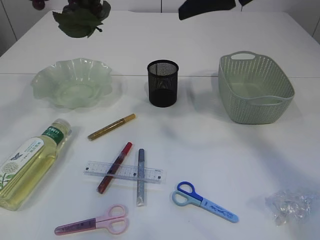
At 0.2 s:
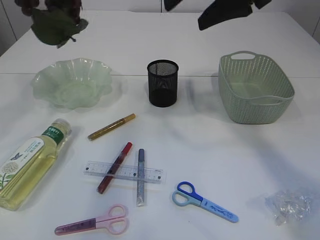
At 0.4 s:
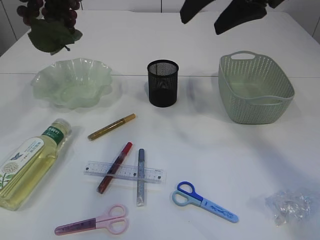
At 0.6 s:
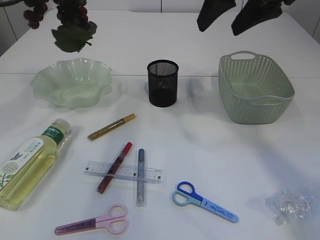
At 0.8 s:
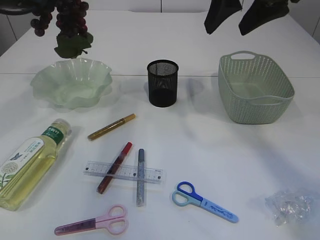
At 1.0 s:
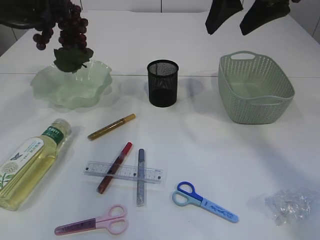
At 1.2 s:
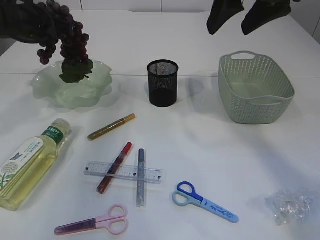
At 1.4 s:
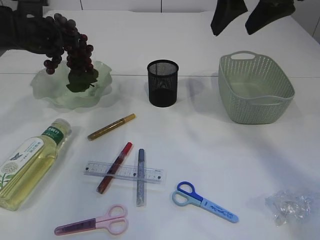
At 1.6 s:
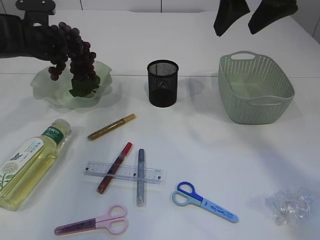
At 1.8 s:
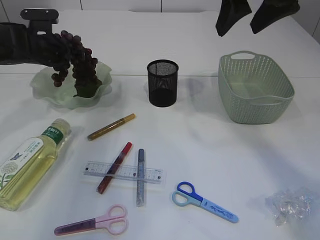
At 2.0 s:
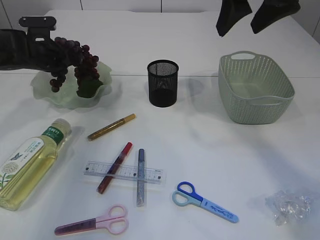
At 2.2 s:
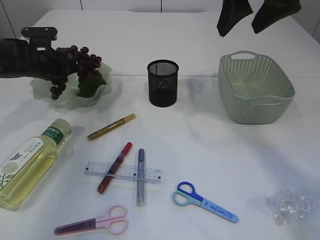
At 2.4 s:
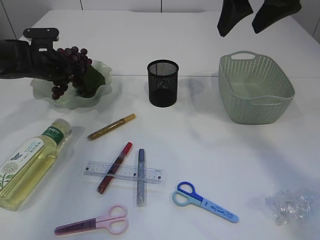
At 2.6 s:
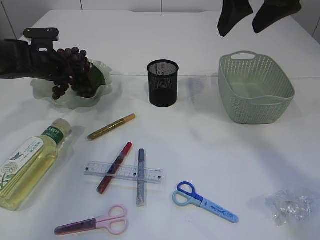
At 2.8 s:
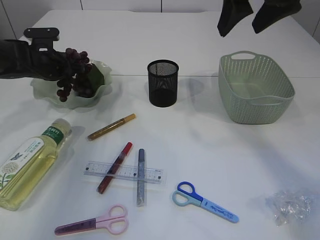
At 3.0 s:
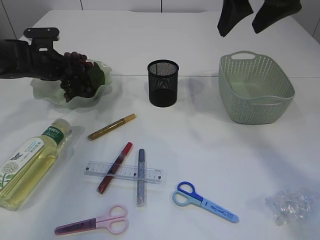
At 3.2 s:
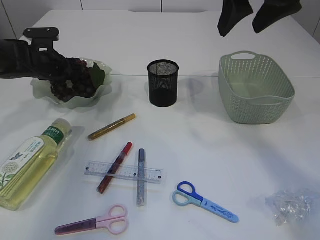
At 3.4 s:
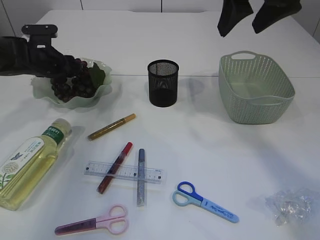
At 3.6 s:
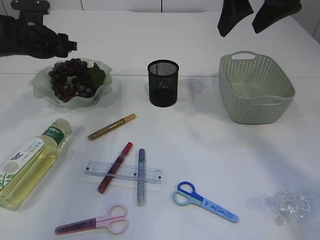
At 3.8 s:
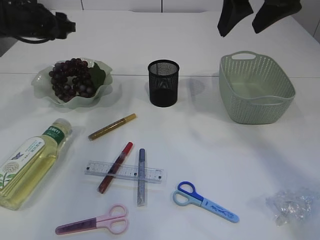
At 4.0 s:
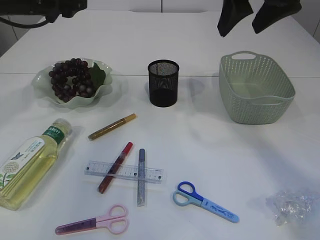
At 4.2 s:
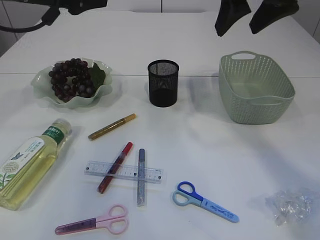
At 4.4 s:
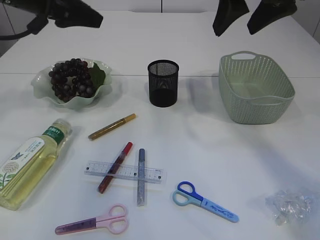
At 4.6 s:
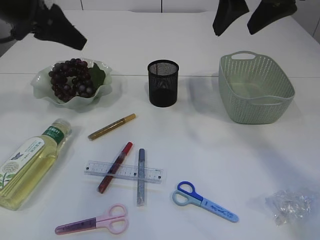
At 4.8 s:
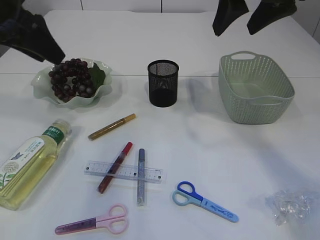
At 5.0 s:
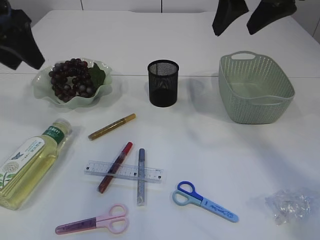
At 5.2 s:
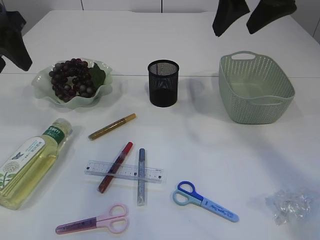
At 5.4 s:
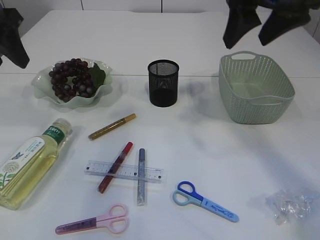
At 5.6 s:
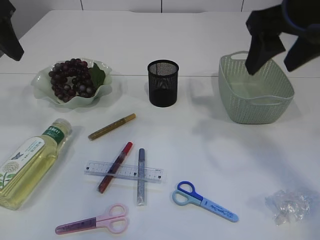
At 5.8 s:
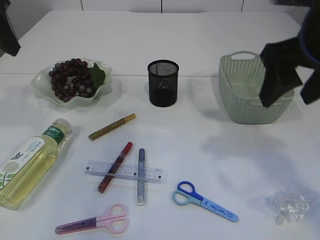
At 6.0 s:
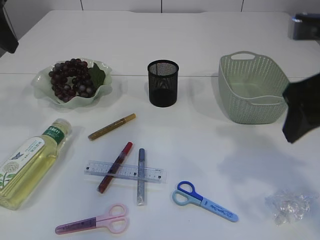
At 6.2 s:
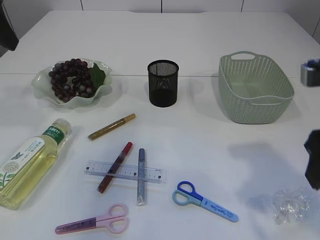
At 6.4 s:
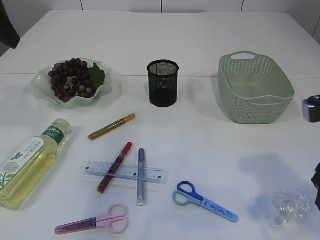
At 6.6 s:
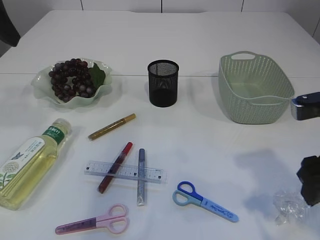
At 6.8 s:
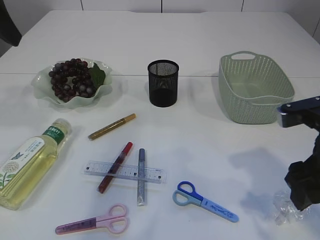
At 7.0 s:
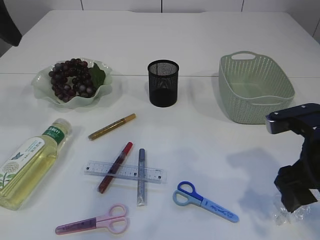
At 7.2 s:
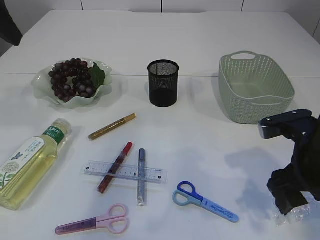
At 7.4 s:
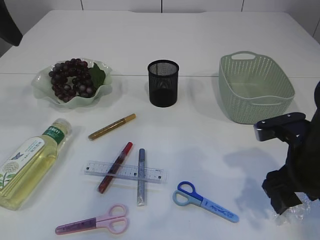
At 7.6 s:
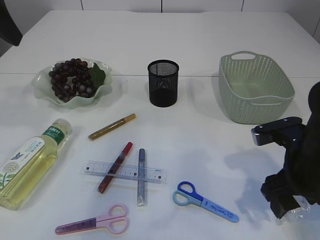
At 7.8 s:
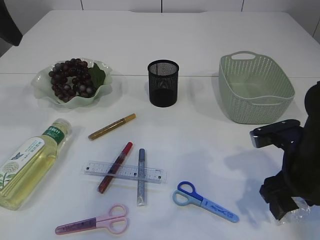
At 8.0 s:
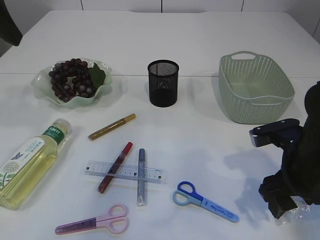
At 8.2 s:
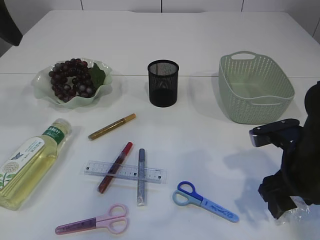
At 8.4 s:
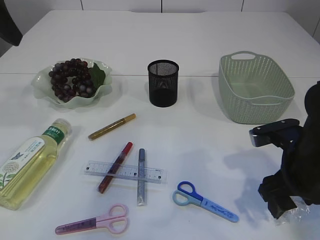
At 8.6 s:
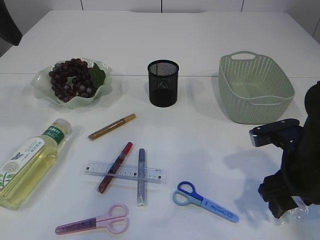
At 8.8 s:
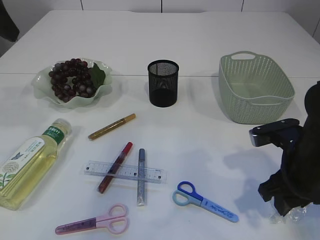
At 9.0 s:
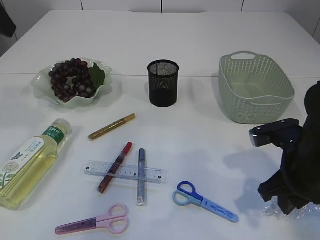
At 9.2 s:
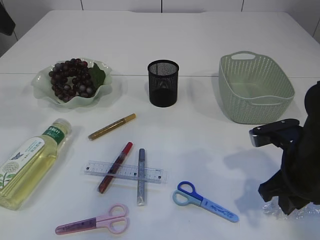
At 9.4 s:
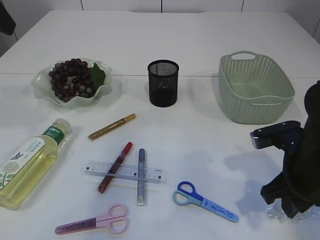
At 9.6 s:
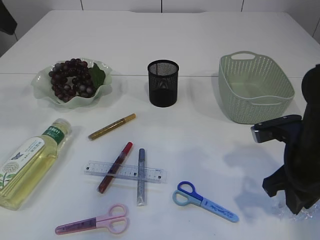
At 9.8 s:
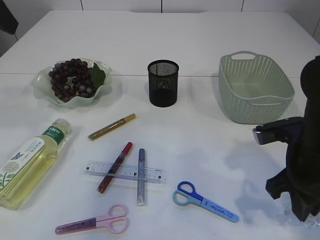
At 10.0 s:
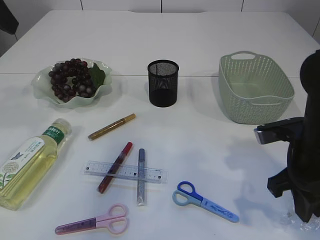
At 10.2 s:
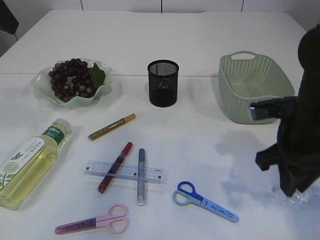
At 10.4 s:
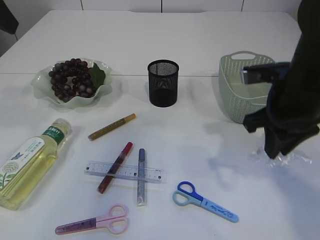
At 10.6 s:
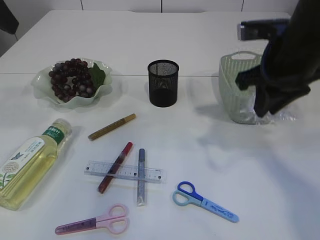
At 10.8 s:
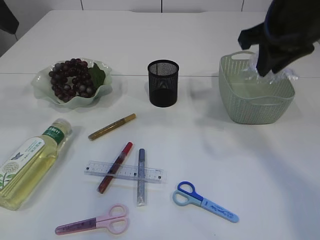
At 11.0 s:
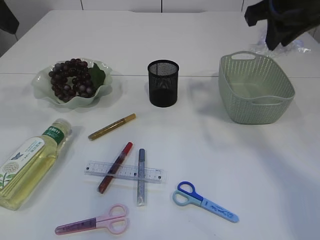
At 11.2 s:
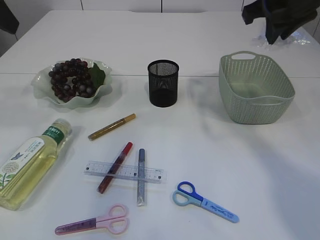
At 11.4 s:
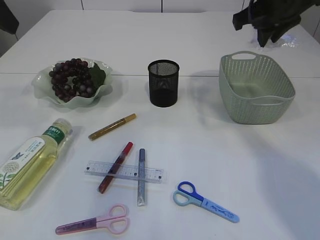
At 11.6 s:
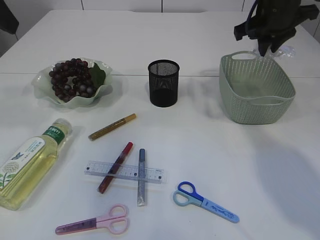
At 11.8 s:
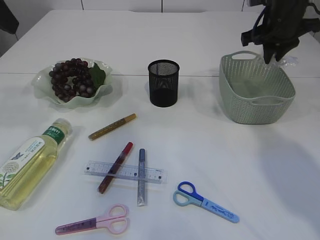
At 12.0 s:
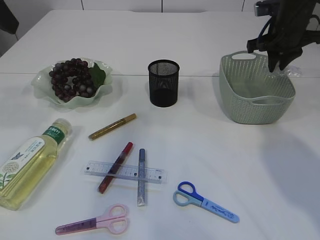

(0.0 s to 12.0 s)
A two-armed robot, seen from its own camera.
Step, 0.8 s - 3.6 s: Place the grapes in the plate.
Step, 3.8 s - 10.4 s: Pick up the plastic.
0.0 s - 1.6 s: The left gripper shifts about 20 cm downward and forward, while the right gripper moves roughly 5 cm.
1.6 s - 3.0 s: The left gripper is displaced downward by approximately 5 cm, and opens up.
3.0 s - 4.4 s: The left gripper shifts approximately 20 cm upward and backward.
4.4 s - 6.0 s: The right gripper shifts some 15 cm backward and downward, while the left gripper goes about 10 cm backward and to the left.
6.0 s - 7.6 s: The right gripper moves downward, some 15 cm.
7.6 s - 9.0 s: The right gripper closes up.
9.0 s - 10.4 s: The right gripper moves upward, some 10 cm.
10.4 s - 12.0 s: The right gripper moves forward, roughly 20 cm.

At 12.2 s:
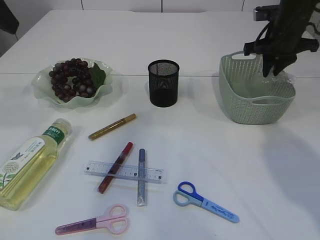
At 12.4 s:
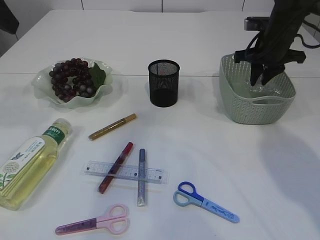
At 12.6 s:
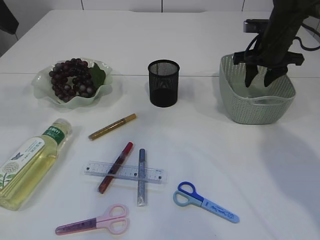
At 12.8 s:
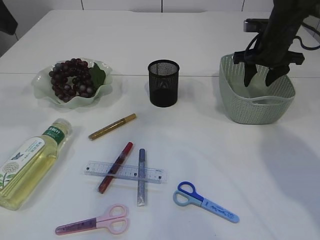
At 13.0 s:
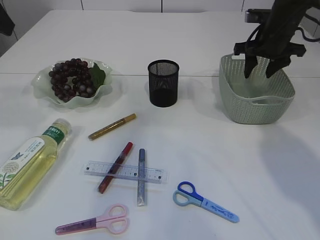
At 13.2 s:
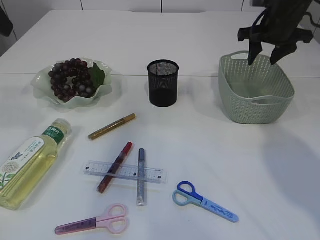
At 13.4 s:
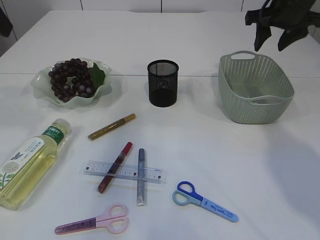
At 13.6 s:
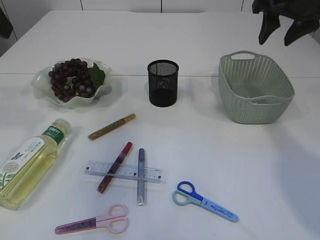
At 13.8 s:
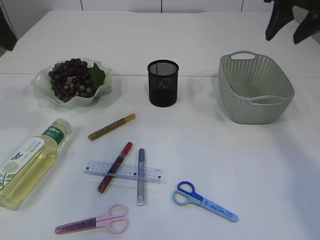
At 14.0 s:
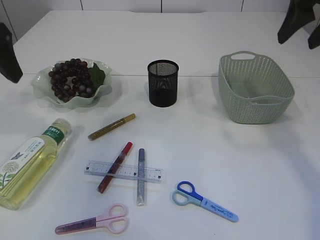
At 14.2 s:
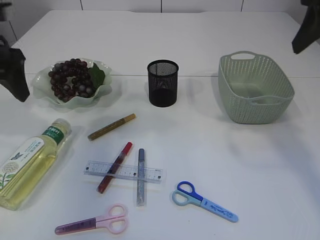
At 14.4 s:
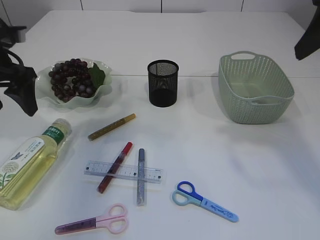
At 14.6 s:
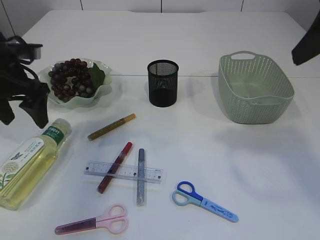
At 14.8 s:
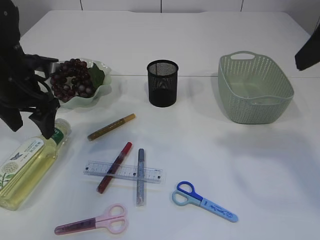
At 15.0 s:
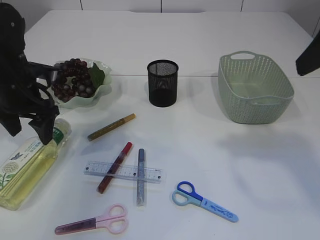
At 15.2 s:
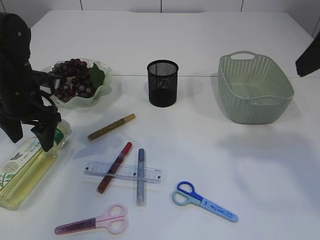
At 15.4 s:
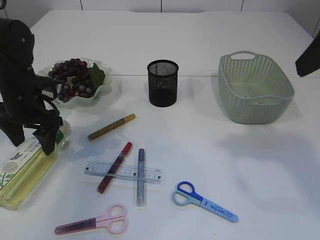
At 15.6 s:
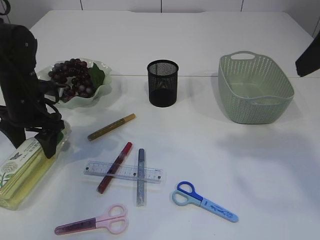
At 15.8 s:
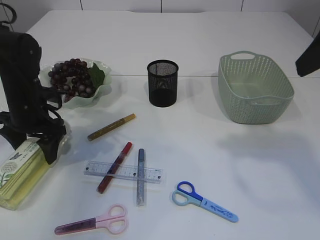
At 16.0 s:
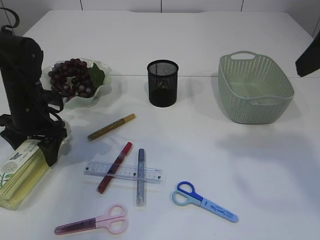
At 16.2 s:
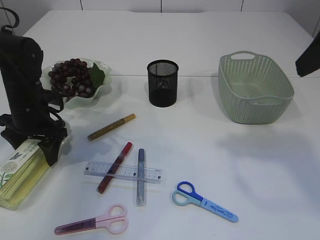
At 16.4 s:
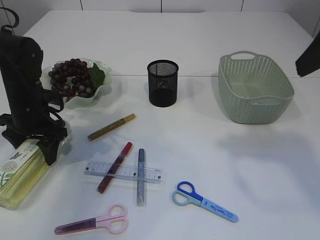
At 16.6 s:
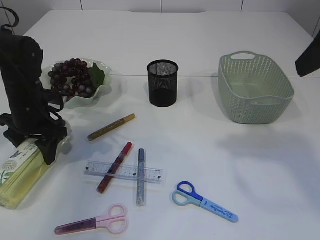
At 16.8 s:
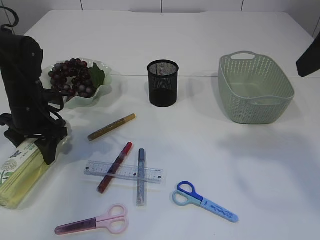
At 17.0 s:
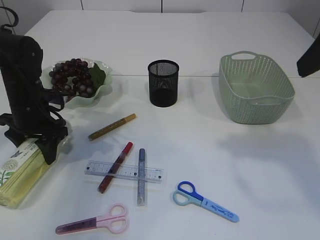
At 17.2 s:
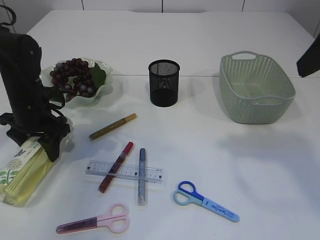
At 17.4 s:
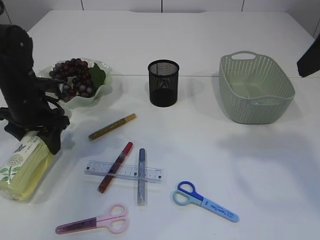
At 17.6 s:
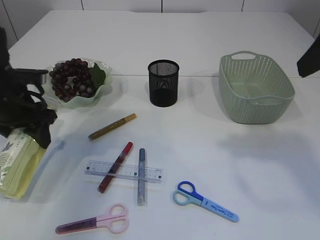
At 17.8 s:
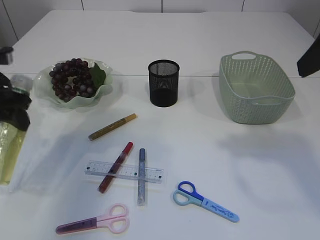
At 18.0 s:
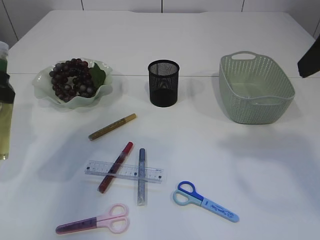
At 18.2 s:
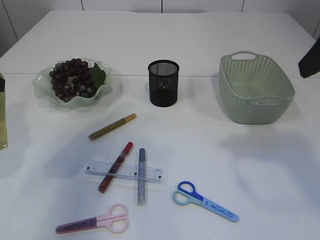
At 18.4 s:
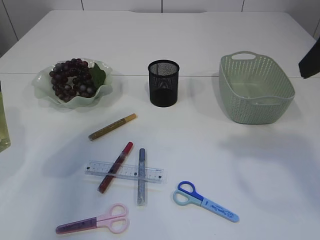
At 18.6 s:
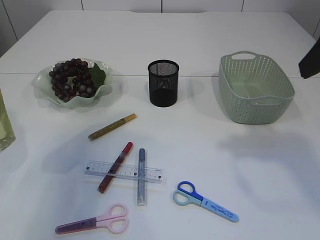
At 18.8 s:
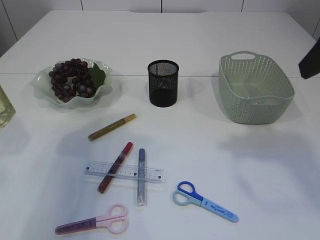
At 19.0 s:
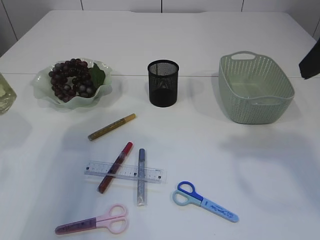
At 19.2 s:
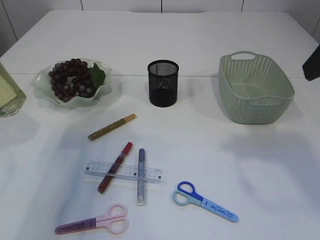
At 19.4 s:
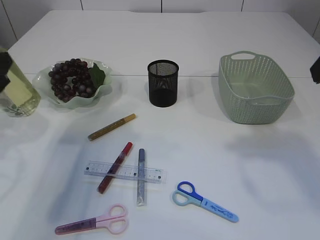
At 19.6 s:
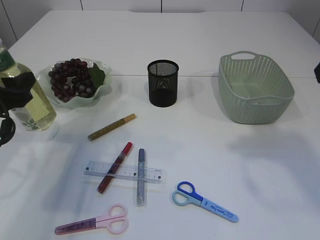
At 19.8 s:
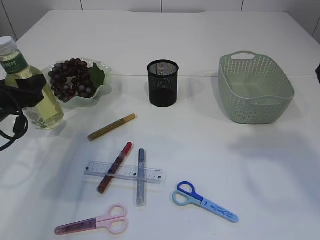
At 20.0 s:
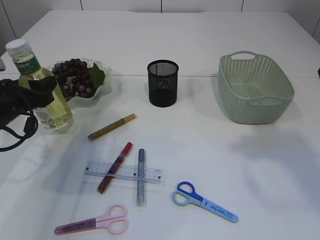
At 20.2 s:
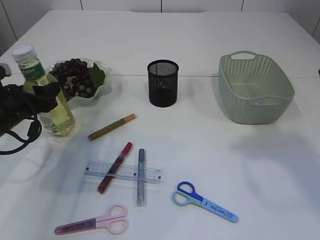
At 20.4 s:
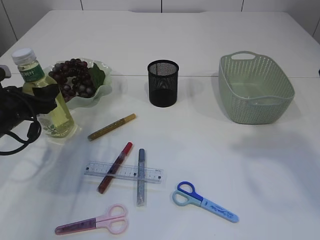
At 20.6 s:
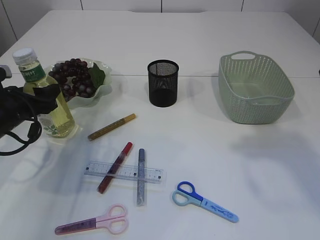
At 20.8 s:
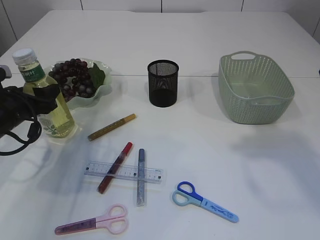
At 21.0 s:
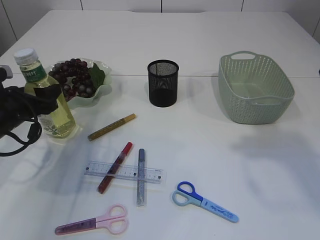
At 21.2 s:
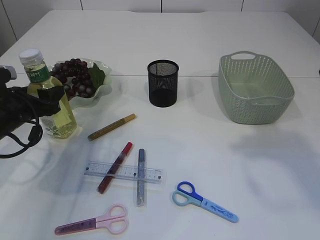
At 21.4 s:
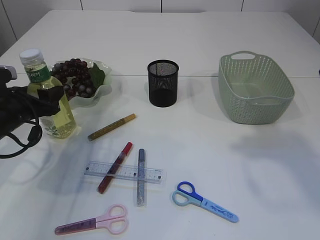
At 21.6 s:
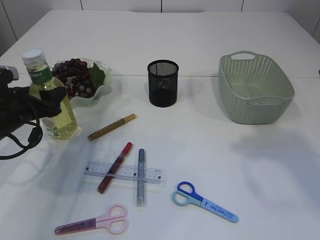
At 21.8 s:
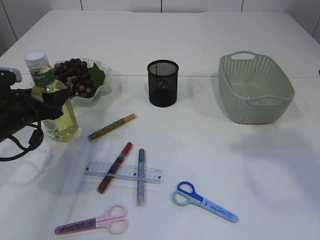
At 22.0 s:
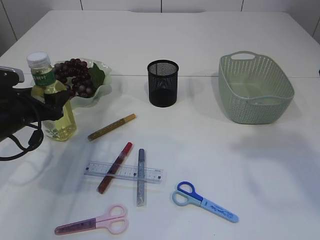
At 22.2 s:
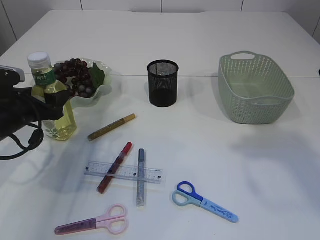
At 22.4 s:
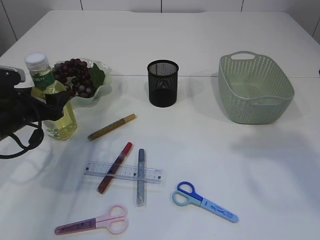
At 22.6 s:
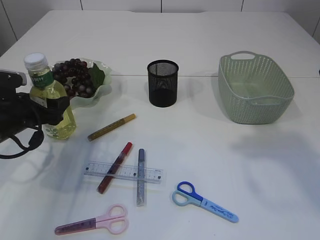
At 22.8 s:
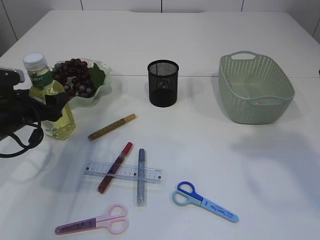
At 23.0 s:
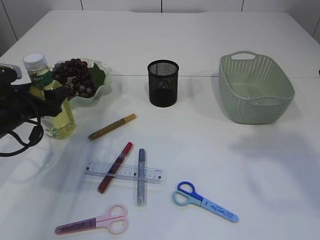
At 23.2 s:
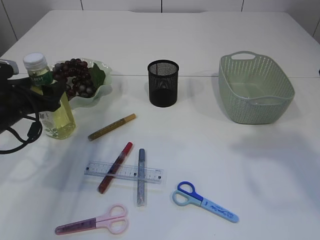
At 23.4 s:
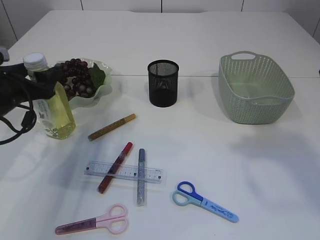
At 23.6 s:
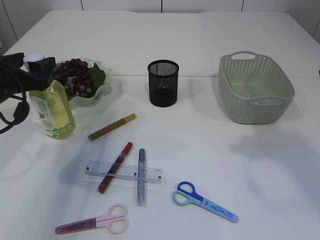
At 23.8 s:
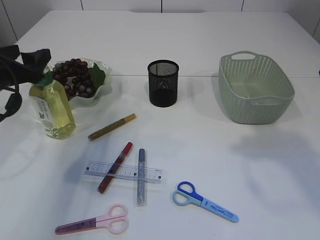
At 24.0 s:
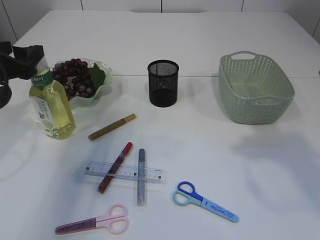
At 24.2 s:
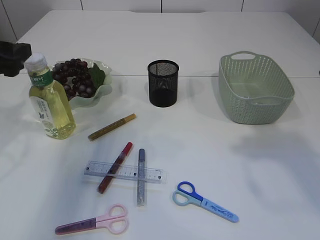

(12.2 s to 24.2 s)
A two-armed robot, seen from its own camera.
Step, 13.6 s - 17.8 s: Pick up the bottle with the left arm.
Step, 18.0 s - 24.0 s: Place the bottle.
12.2 s - 13.8 s: The right gripper goes roughly 15 cm upward and backward, and opens up.
13.8 s - 15.2 s: The left gripper moves downward, roughly 20 cm. The right gripper travels backward by some 15 cm.
15.2 s - 16.6 s: The grippers stay close to where they were, moving slightly.
16.6 s - 18.2 s: The left gripper heads upward and backward, covering about 20 cm.
18.2 s - 19.8 s: The left gripper travels downward by approximately 15 cm.
19.8 s - 22.6 s: There are only small adjustments of the grippers.
22.6 s - 24.2 s: The left gripper goes about 15 cm upward.
